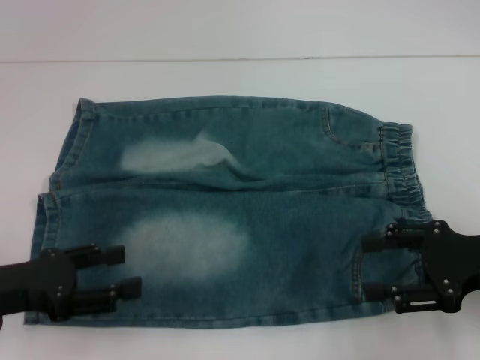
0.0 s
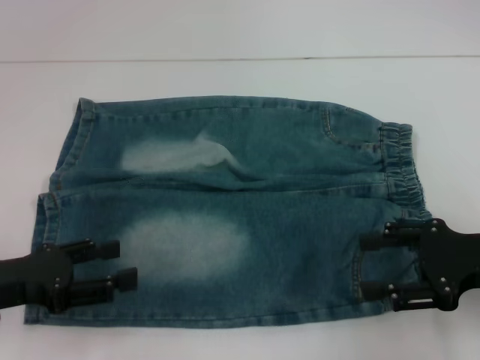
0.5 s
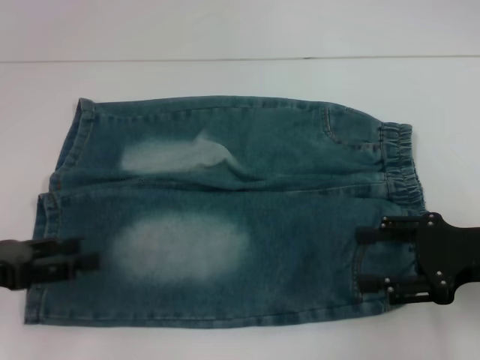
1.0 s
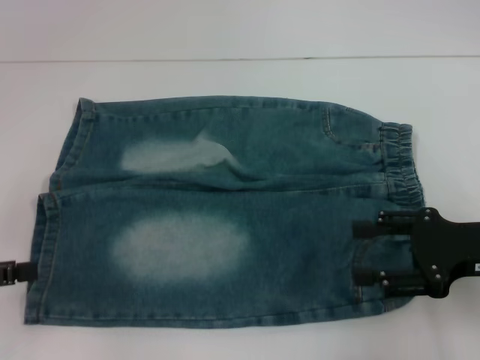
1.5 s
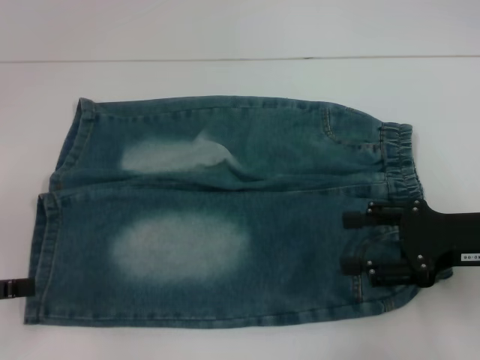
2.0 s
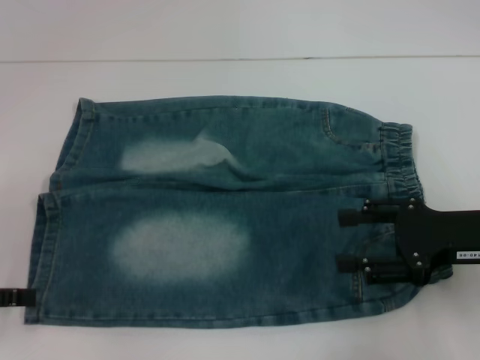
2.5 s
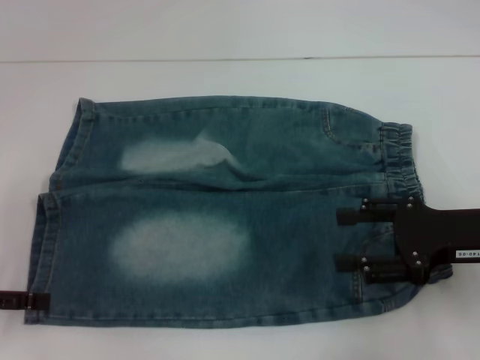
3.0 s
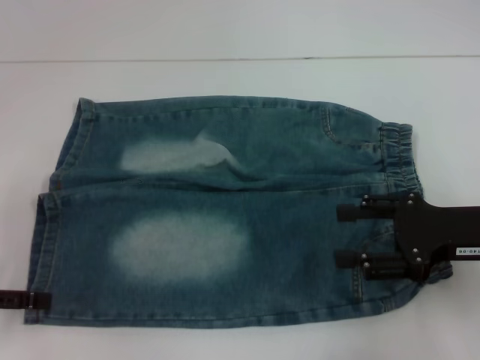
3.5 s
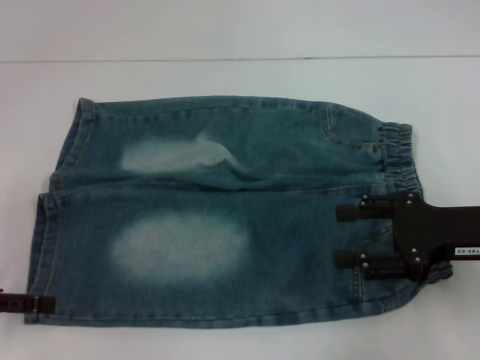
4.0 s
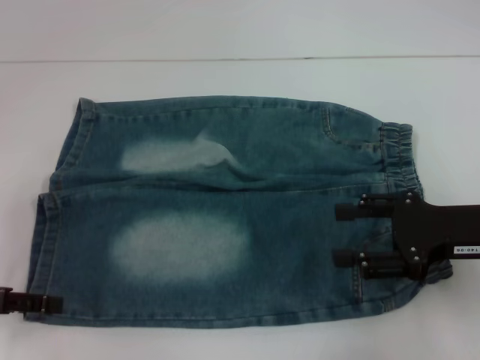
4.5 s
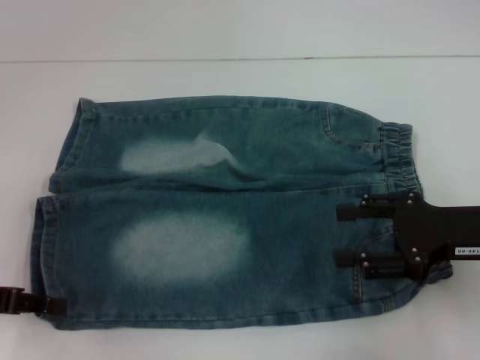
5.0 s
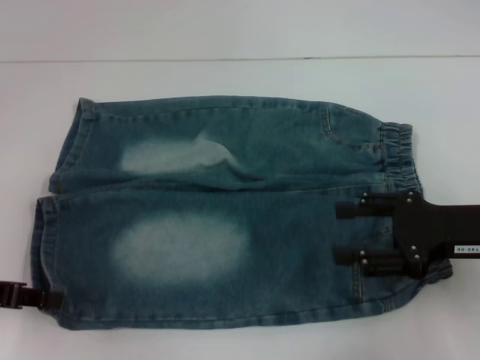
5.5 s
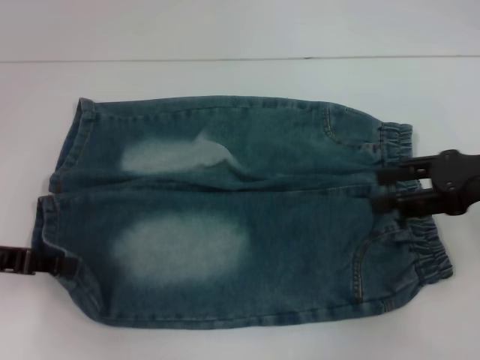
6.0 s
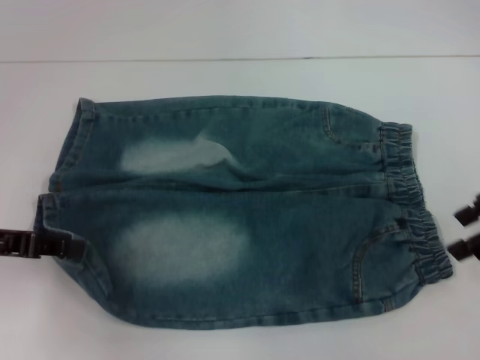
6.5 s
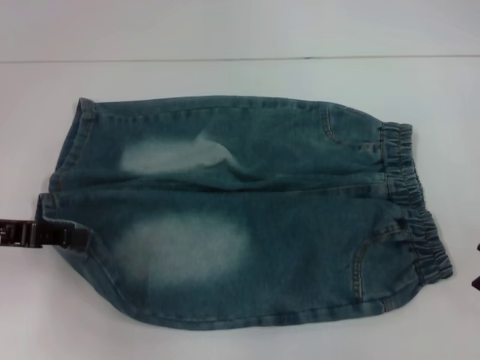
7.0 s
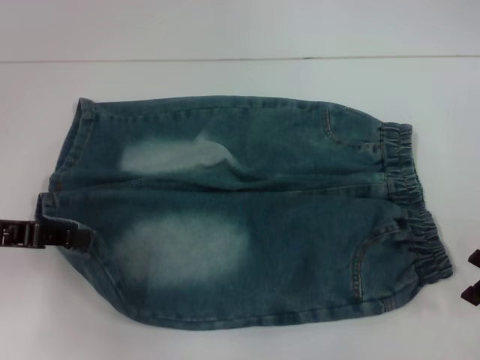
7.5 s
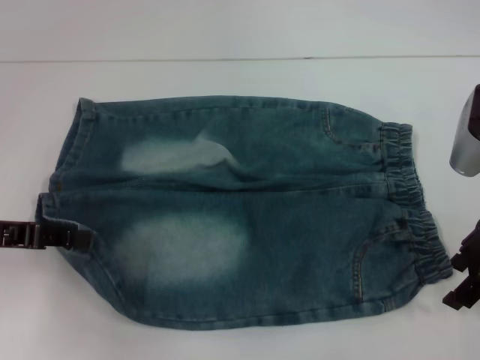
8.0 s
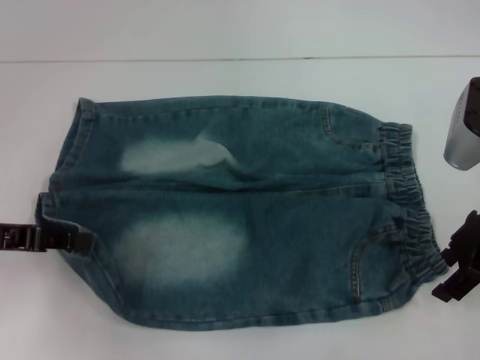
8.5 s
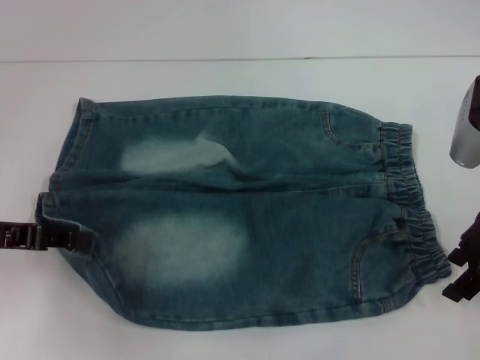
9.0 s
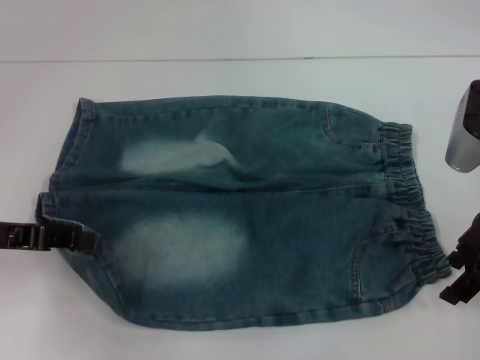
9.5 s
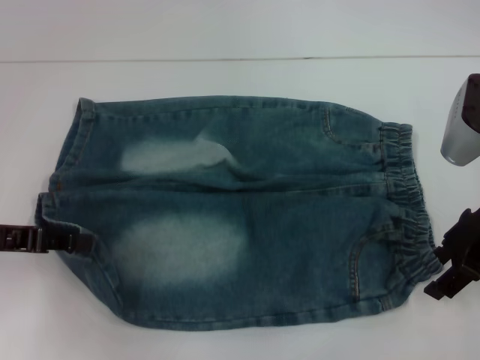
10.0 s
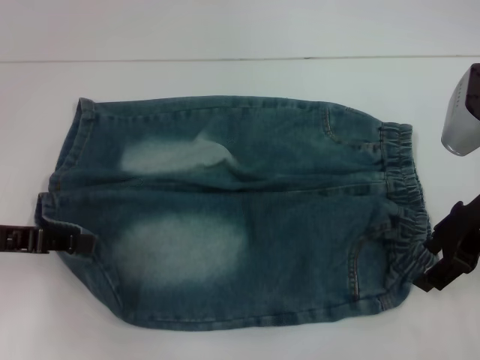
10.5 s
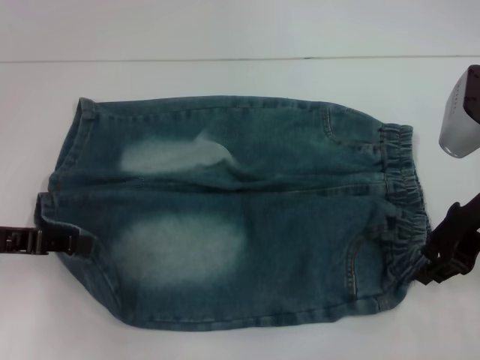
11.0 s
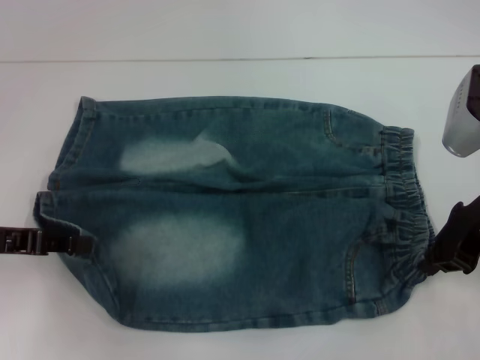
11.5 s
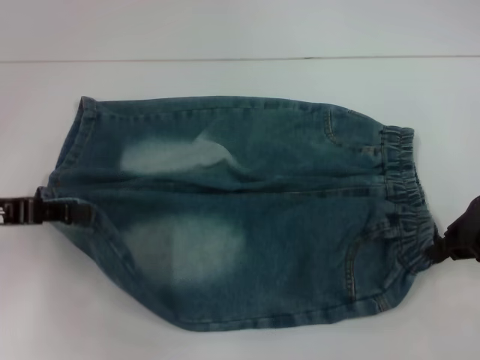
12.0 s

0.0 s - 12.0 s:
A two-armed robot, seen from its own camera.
Step, 0.0 s - 5.0 s: Grab the lower left pant leg with your left hand.
Step, 5.5 s - 11.5 s: Hold the lower right waistband with your right hand.
0.0 s - 2.0 s: The left gripper shifts roughly 10 cm to the left.
2.0 s - 4.0 s: There are only small adjustments of the grippers.
4.0 s - 6.0 s: The left gripper closes up. Meanwhile the right gripper is displaced upward by some 5 cm.
8.0 s - 10.0 s: Both grippers stay about where they are.
10.0 s - 12.0 s: The right gripper closes its fingers.

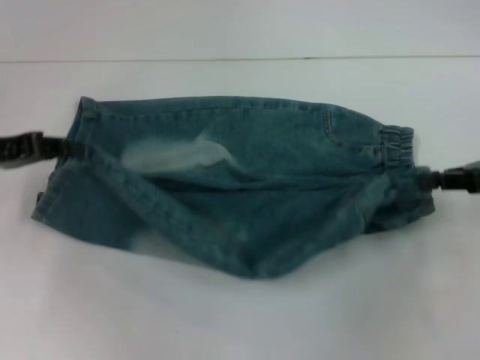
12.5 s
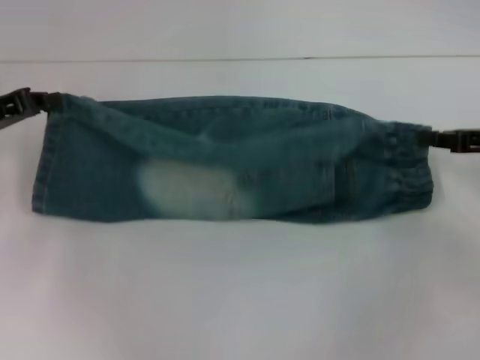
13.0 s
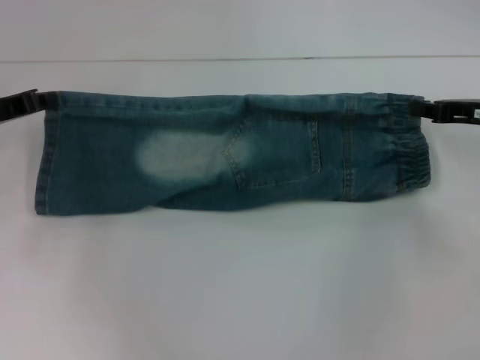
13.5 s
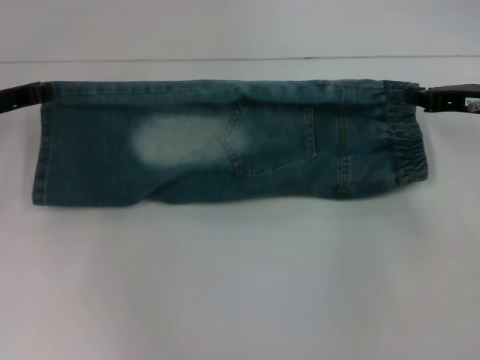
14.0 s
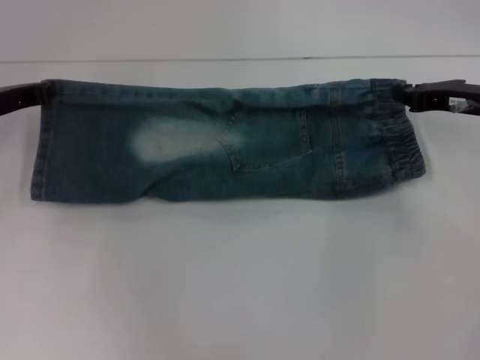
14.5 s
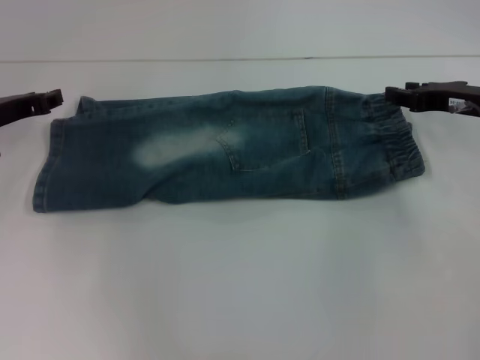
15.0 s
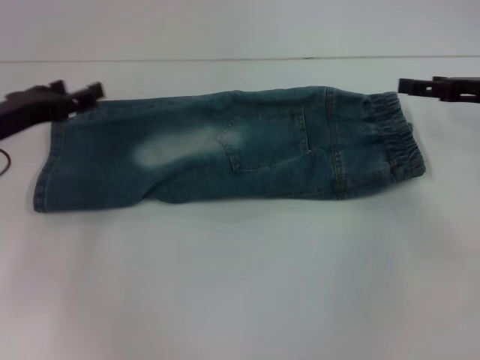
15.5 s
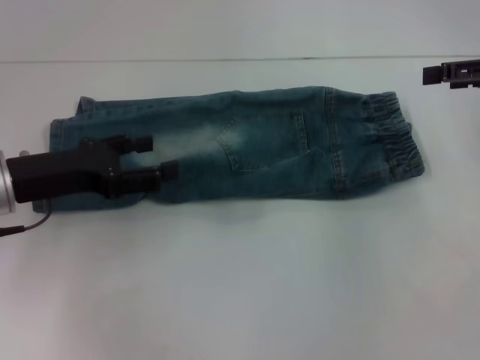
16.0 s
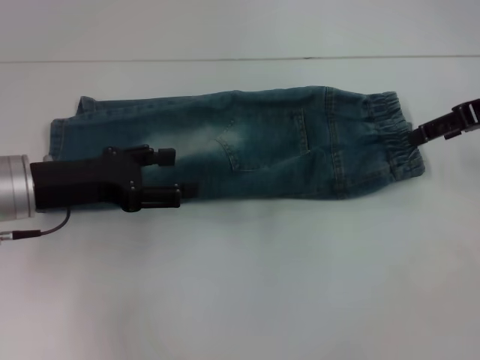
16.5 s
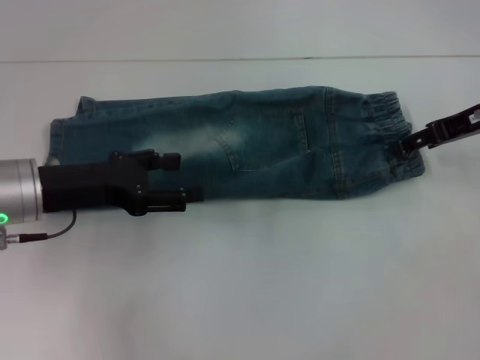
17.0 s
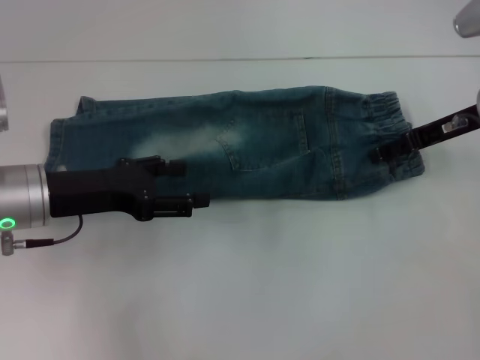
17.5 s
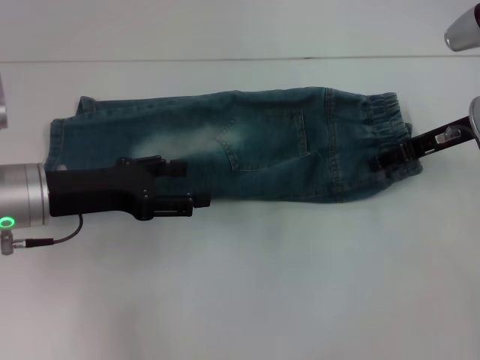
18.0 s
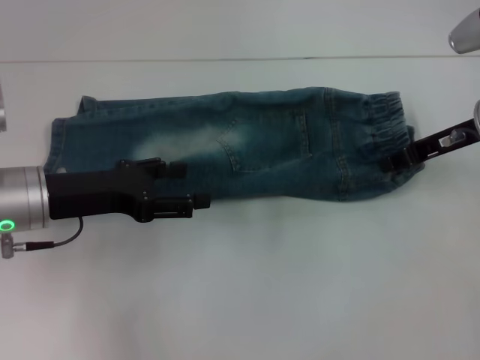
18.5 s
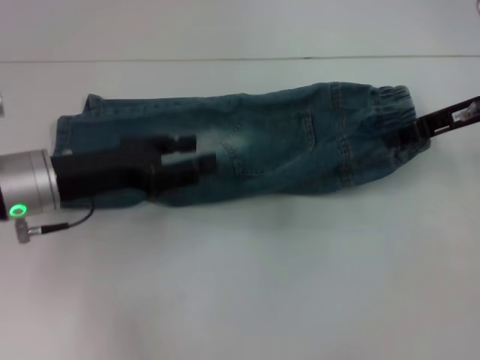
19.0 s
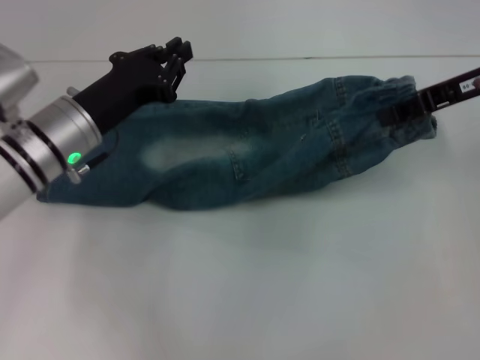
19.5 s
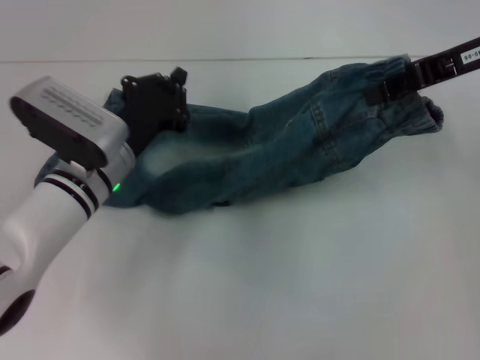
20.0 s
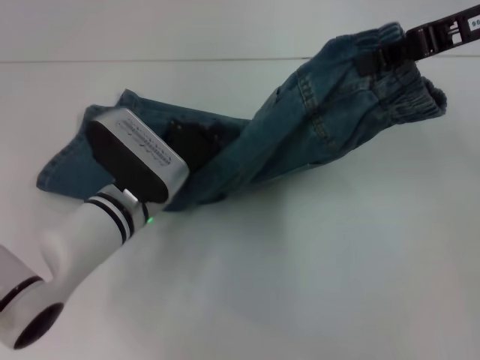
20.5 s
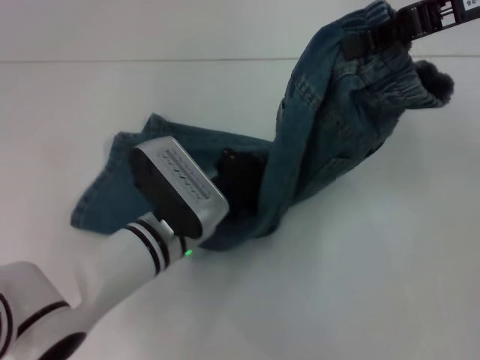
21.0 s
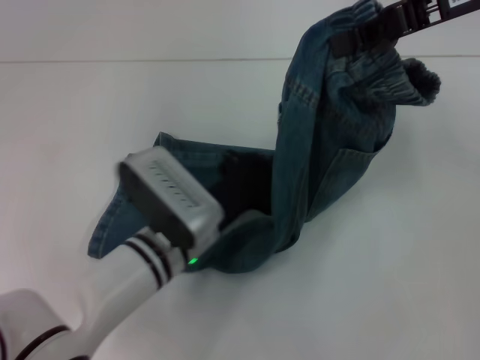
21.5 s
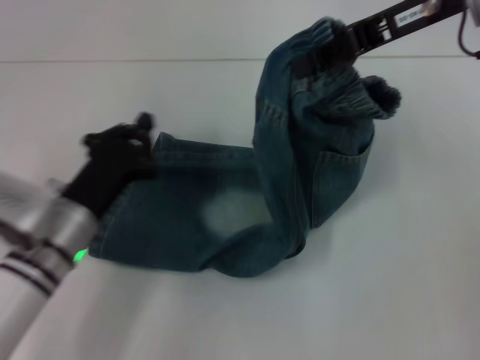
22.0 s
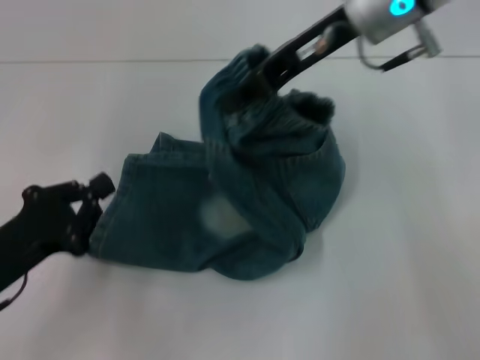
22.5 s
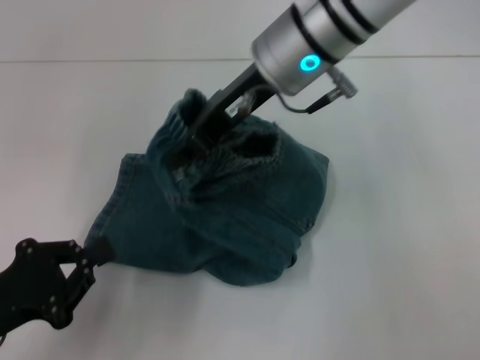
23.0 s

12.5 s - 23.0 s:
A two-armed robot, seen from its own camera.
Step, 12.5 s - 15.0 s: Fold upward with your right hand.
Step, 15.5 s - 18.0 s: Grab the waistband with your right hand.
Step, 18.5 s - 21.5 s: Press the middle of the pants with your left hand.
12.5 s - 14.5 s: Both grippers move forward, some 5 cm.
14.5 s - 16.5 s: The left gripper shifts roughly 10 cm backward and to the right, and opens. The right gripper heads upward, covering approximately 10 cm, and opens up.
16.5 s - 19.0 s: The right gripper closes its fingers.
19.0 s - 21.0 s: The right gripper shifts about 10 cm upward. Meanwhile the left gripper shifts approximately 15 cm to the right and downward, and closes its fingers.
21.0 s - 23.0 s: The right gripper heads to the left, covering some 20 cm. Meanwhile the left gripper moves to the left and backward, about 25 cm.

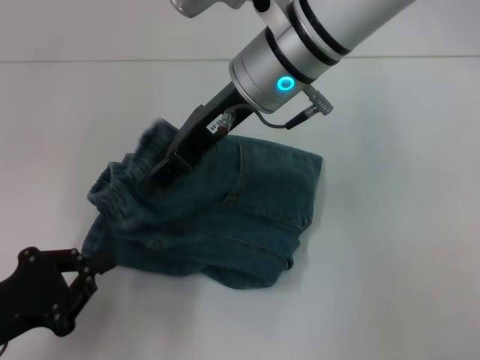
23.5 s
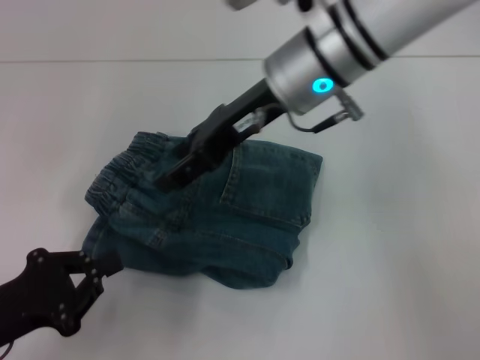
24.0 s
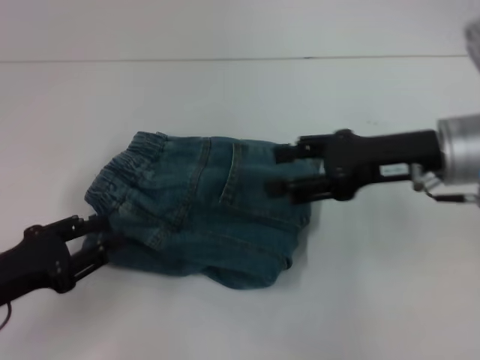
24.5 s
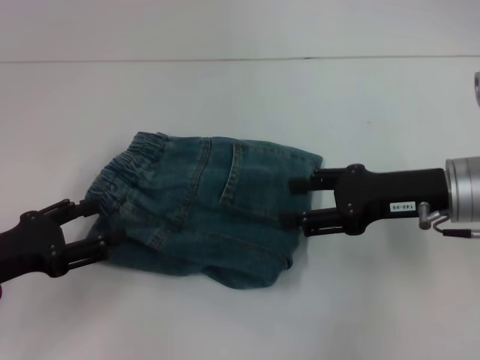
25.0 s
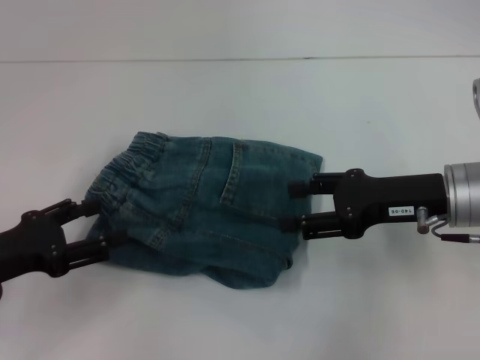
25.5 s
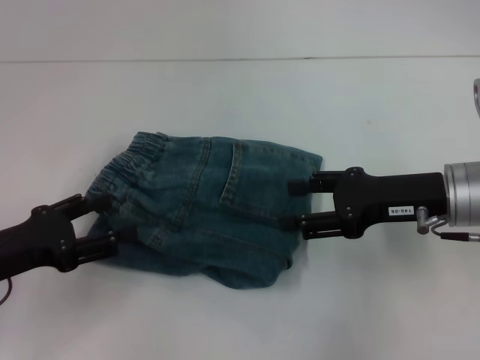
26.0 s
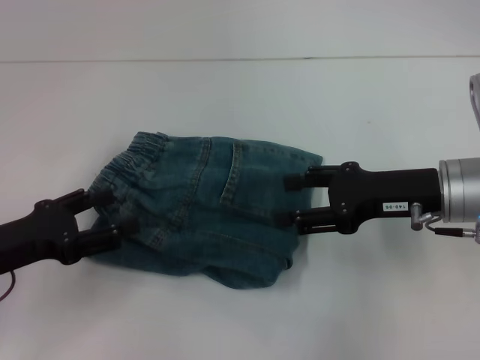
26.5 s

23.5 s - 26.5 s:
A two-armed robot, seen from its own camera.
23.5 s - 25.0 s: The right gripper heads to the right, downward and backward, covering approximately 25 cm, and opens; the left gripper heads forward, covering roughly 5 cm, and opens up.
25.0 s - 26.5 s: There are only small adjustments of the grippers.
